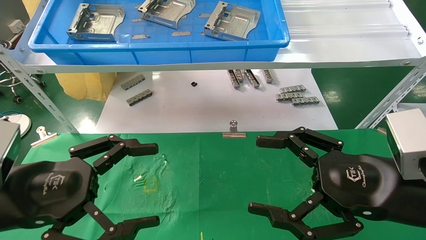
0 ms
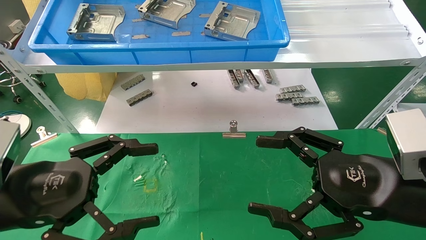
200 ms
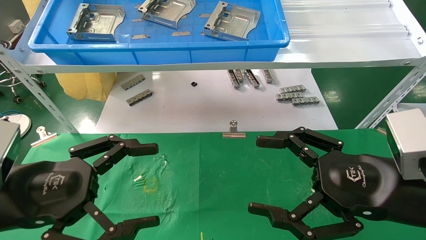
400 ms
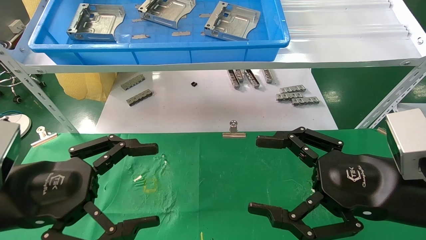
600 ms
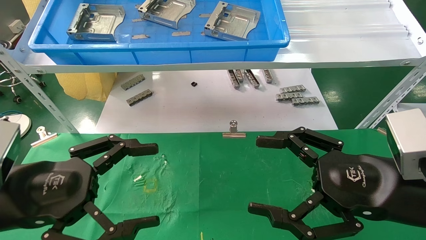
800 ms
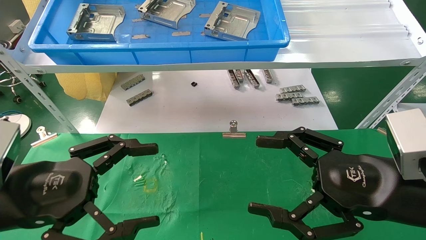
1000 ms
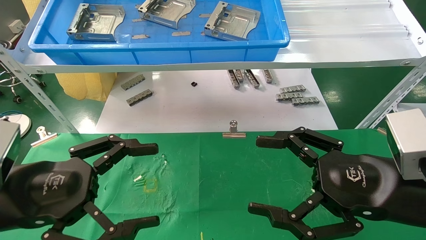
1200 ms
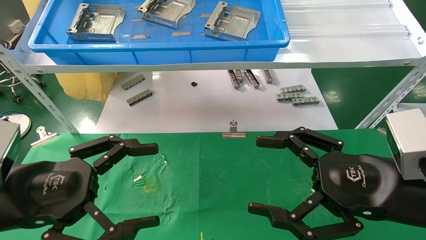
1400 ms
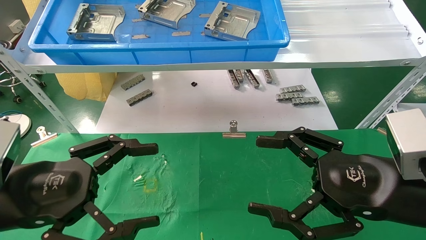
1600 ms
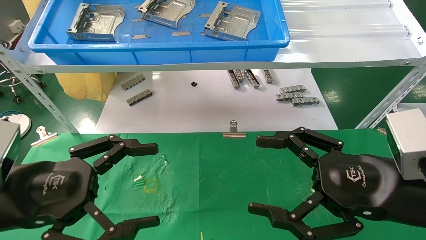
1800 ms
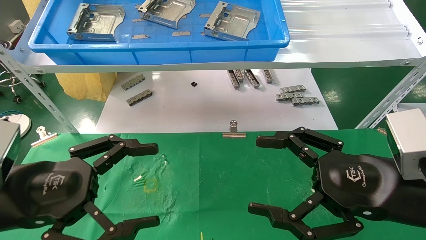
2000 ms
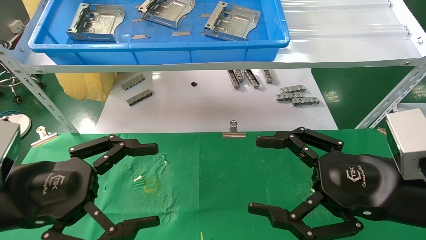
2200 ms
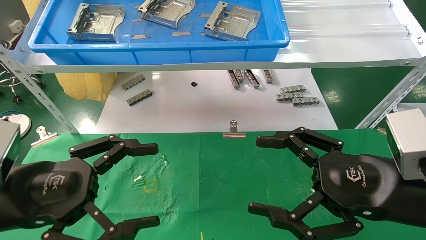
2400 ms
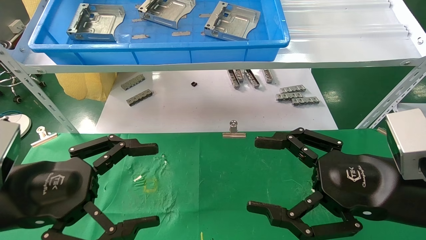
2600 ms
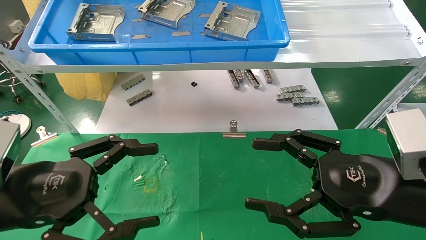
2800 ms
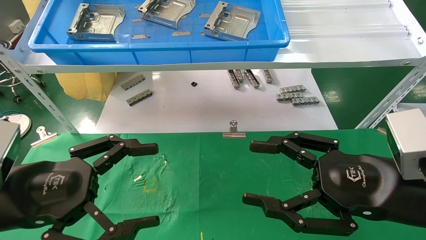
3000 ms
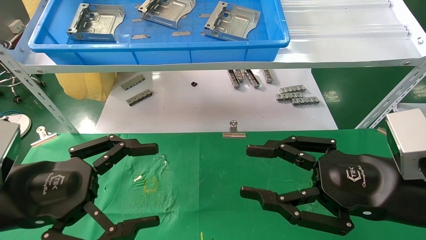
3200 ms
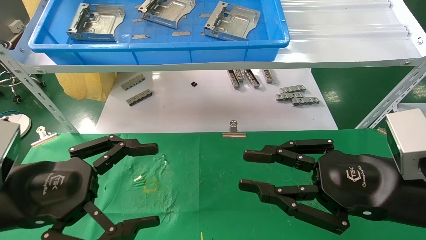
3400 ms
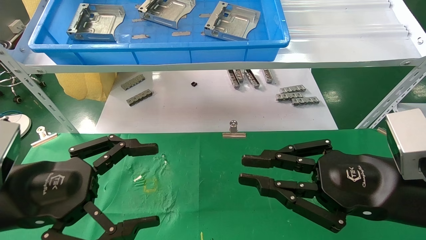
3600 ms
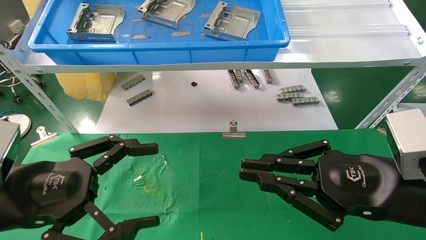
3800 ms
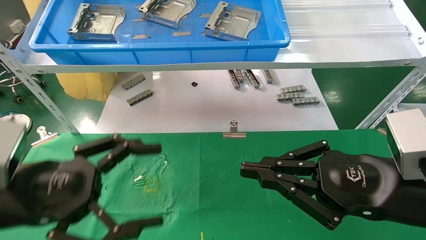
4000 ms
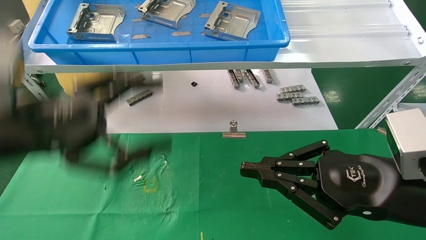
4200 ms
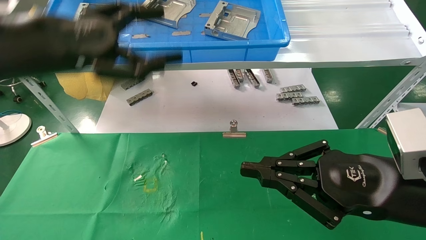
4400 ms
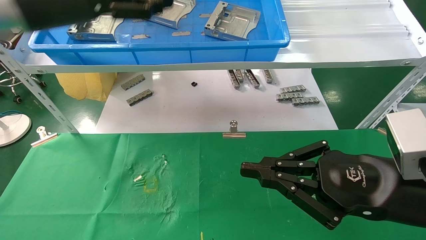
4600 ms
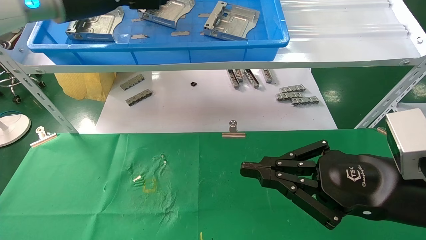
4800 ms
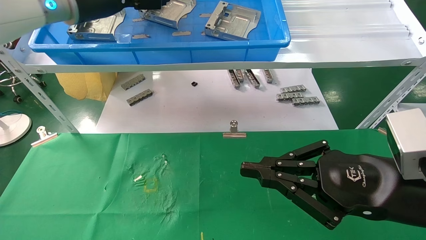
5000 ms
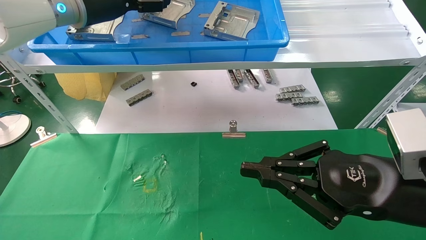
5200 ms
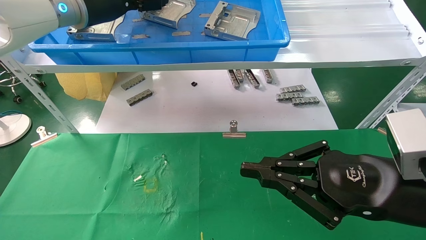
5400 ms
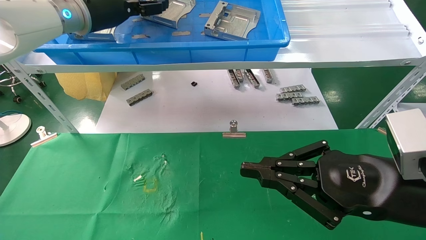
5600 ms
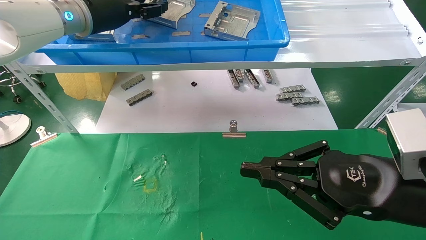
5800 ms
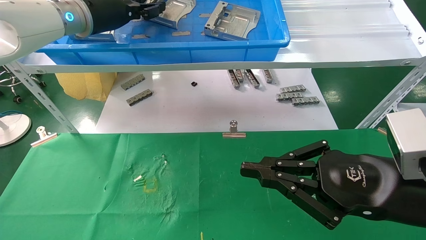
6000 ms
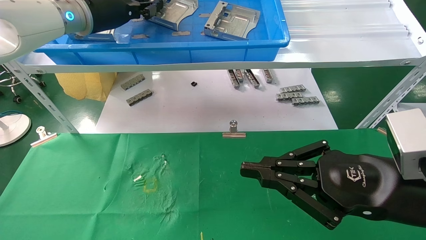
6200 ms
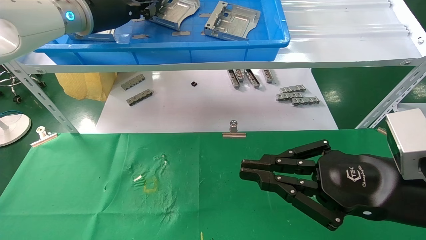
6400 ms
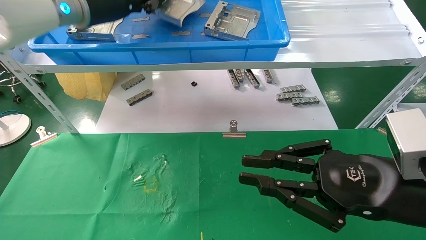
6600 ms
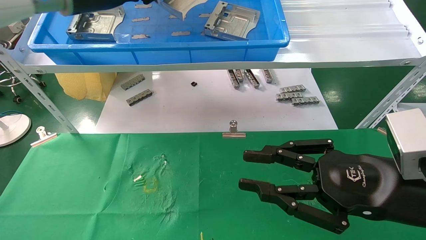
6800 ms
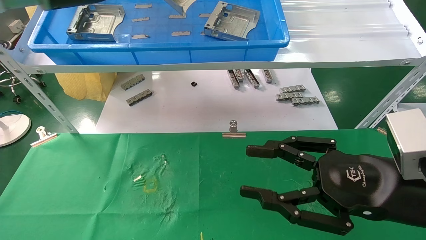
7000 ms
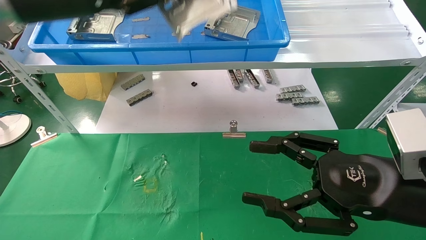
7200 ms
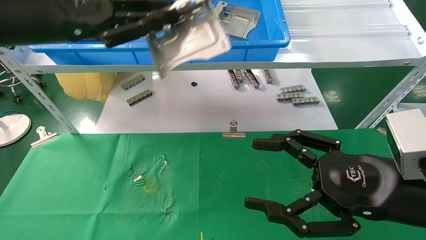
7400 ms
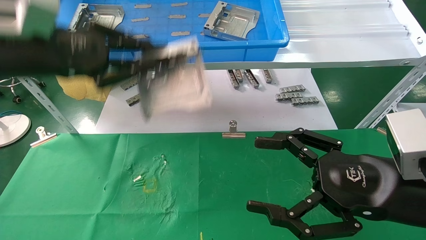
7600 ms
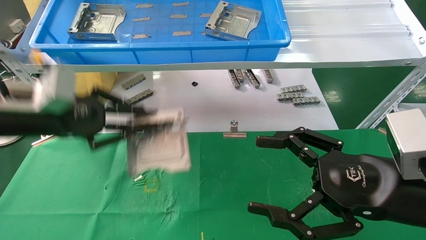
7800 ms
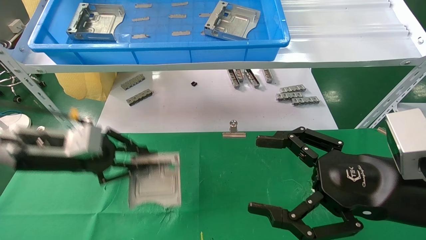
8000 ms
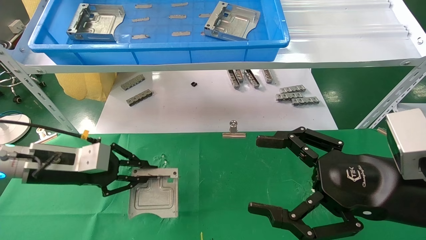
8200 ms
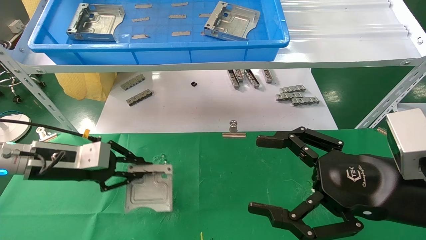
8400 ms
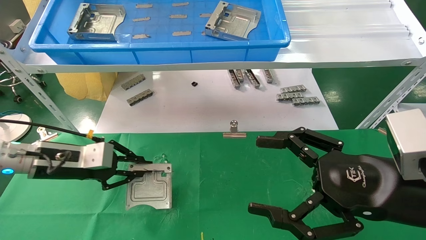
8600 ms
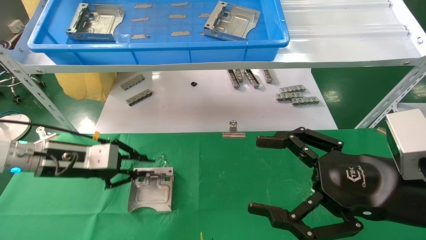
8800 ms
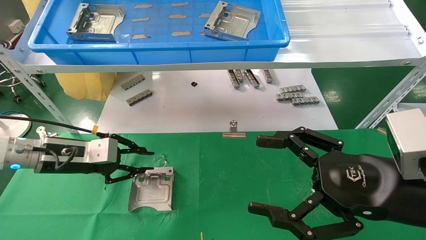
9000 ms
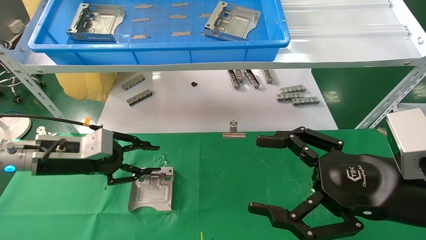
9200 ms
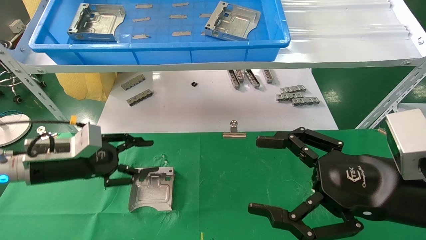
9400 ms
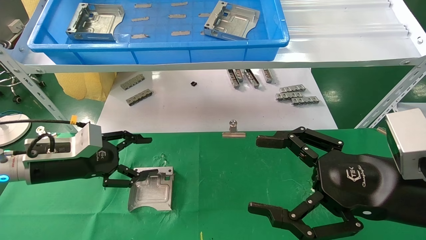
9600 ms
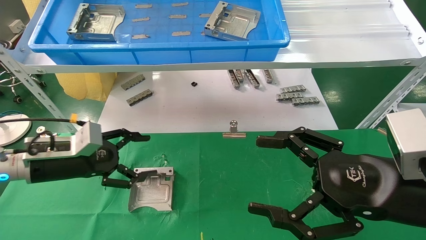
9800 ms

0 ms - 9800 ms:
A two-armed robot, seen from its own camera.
Task of the whole recording: use the mechanical arm to pick up the parts and place them on the table.
Step, 4200 ms - 6200 ms: Pick up the hard drive bracket from the feeding area.
Step, 6400 ms - 9200 ms: Place the hard drive bracket into the box.
0 ms - 2800 ms: The two grippers keep their place.
2800 ms - 4200 ms: The right gripper closes its fingers; the left gripper shifts some 10 cm upward.
4200 ms - 5600 ms: The left gripper moves forward and upward, roughly 25 cm.
5600 ms - 7000 ms: The right gripper opens up, while the left gripper goes approximately 10 cm backward, and closes its fingers.
7000 ms - 8400 ms: The left gripper heads downward, covering about 25 cm; the right gripper opens up.
8400 ms - 9800 ms: The left gripper opens.

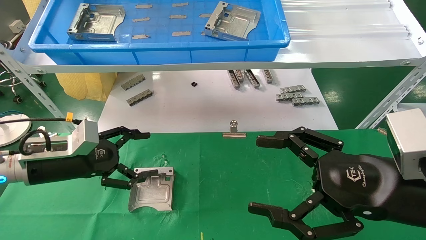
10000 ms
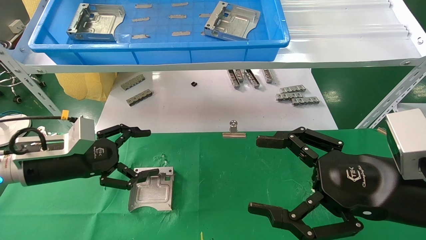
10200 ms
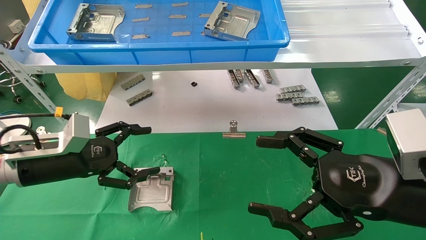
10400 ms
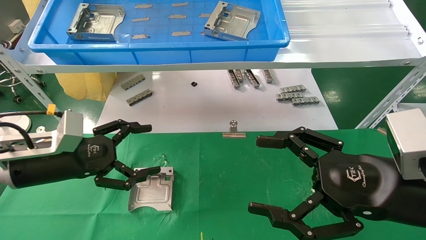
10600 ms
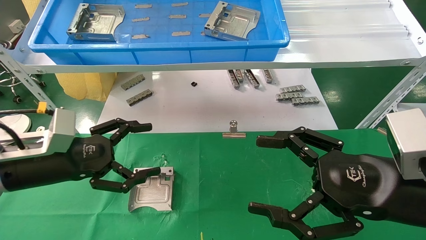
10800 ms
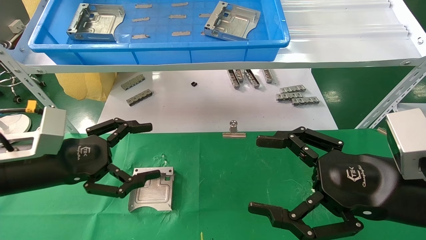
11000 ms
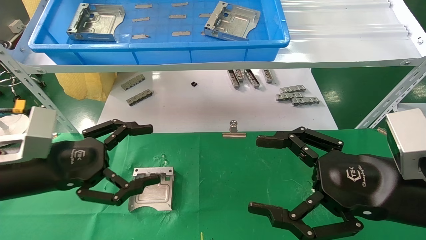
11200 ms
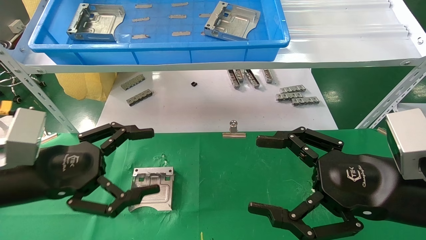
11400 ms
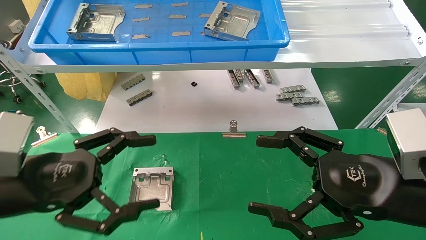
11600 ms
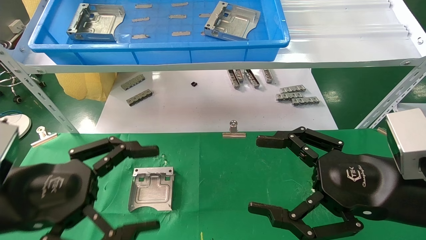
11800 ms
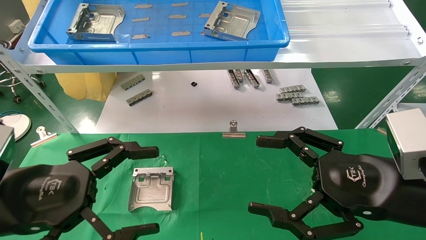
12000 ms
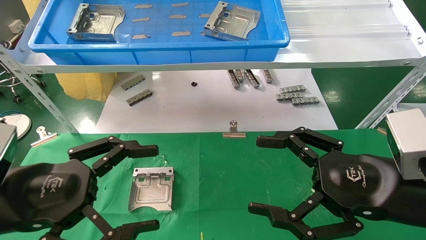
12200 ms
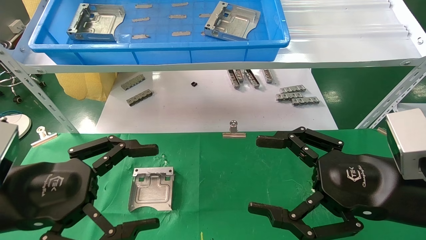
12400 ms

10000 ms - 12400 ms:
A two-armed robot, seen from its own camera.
Task of the whole recording: use the mechanical arm to pick up the parts and place them on the table.
10000 ms - 11200 ms: The left gripper moves backward, some 10 cm.
11200 ms - 12400 ms: The left gripper shifts roughly 5 cm backward.

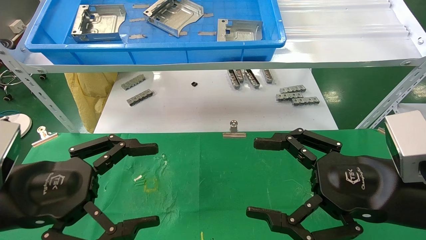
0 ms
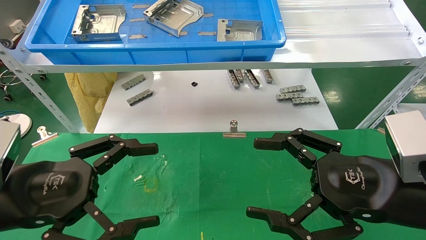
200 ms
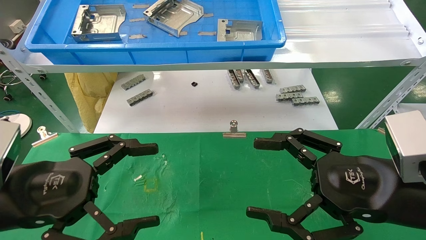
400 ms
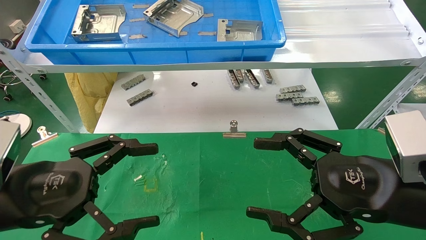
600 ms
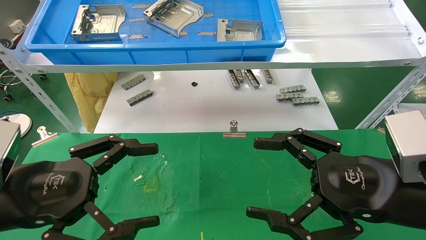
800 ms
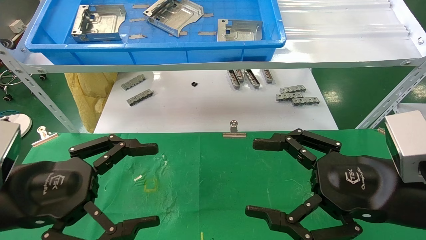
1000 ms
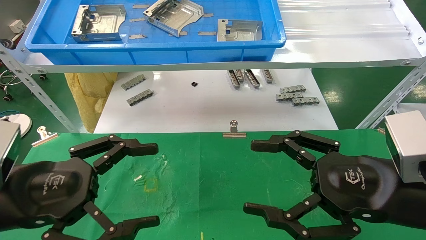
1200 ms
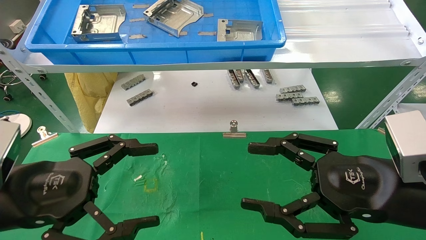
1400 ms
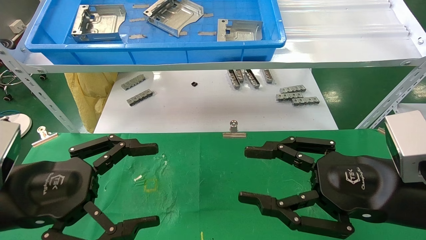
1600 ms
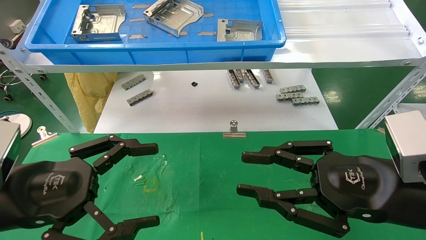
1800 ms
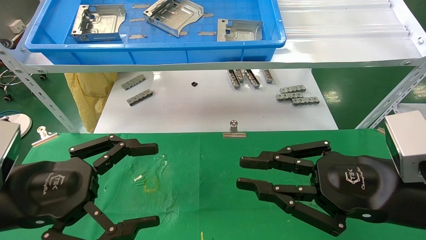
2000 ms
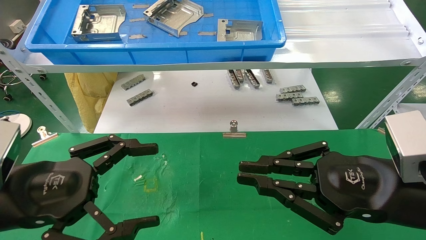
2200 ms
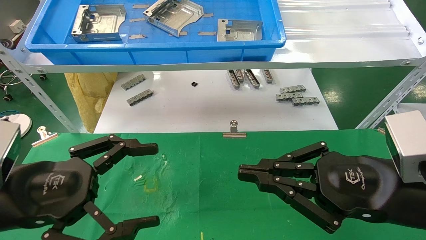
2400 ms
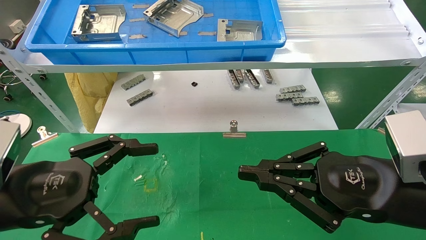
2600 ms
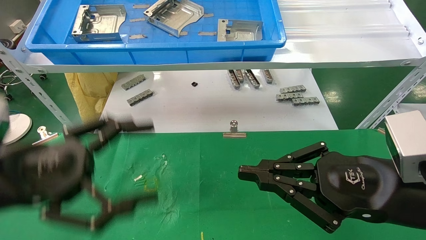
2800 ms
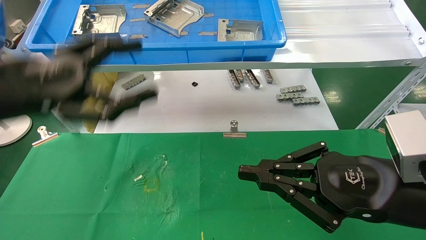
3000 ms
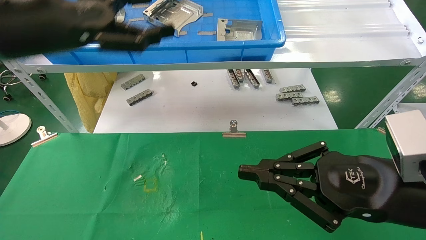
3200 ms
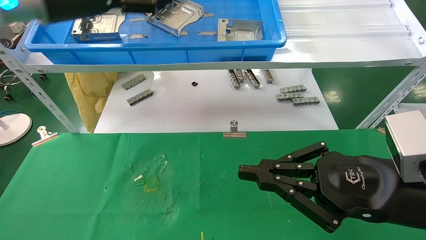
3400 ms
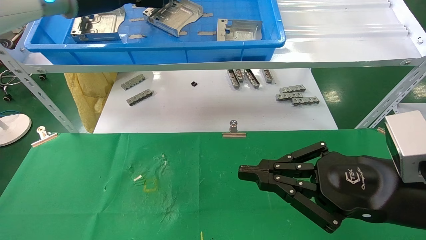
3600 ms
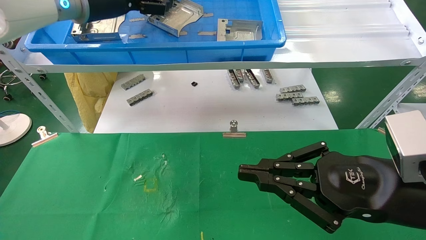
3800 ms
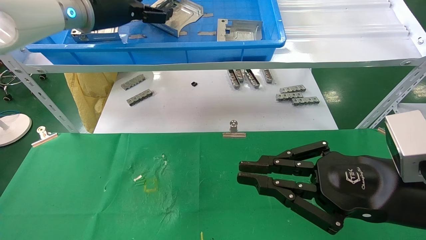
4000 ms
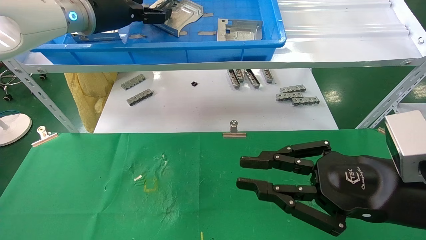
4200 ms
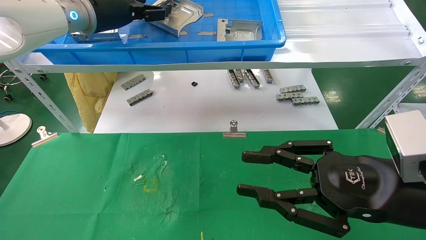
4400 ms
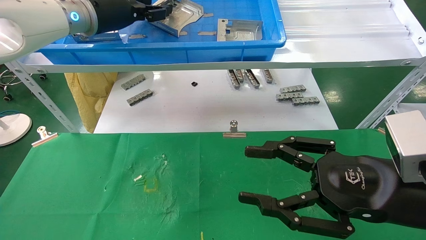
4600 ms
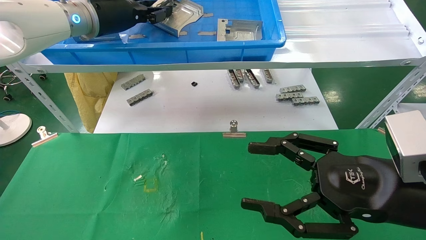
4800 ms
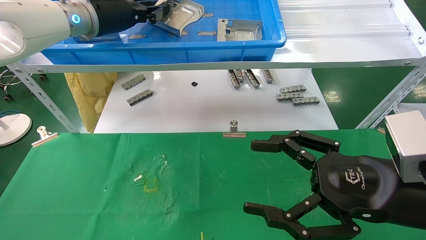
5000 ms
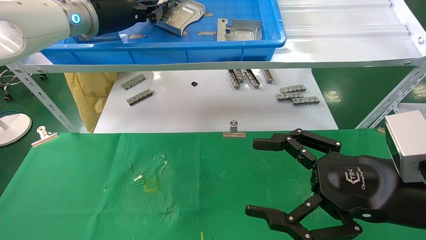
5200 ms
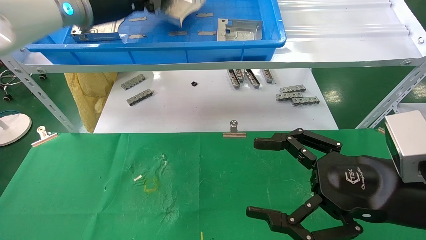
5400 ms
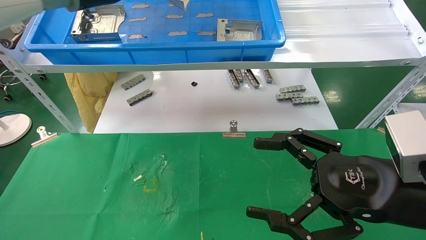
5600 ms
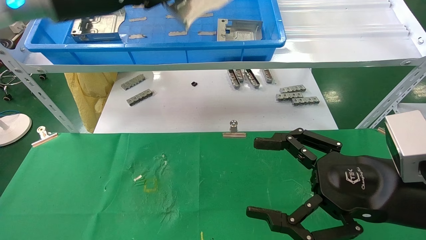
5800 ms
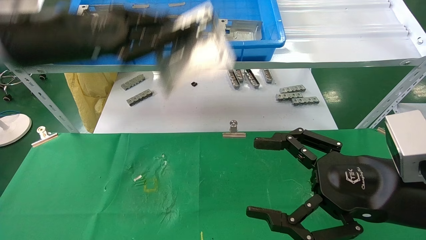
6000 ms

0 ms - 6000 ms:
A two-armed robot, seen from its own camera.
Task of the whole recording: use the mechanical arm to pick up the parts and place them on the table.
Step, 3000 ms - 5200 ms: Pick up the hard drive bracket from the feeding area.
0 ms - 1600 ms: Neither gripper changes place.
1600 ms - 3000 ms: The right gripper closes; the left gripper travels upward and forward by roughly 15 cm.
3000 ms - 4400 ms: The left gripper goes approximately 20 cm forward and upward.
4400 ms - 6000 ms: The right gripper opens up; the left gripper shifts approximately 15 cm backward and downward, and closes.
